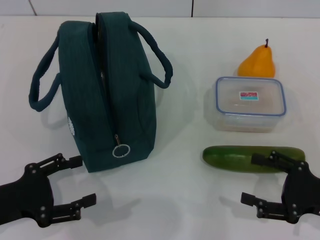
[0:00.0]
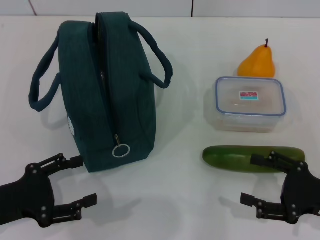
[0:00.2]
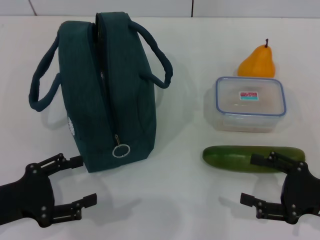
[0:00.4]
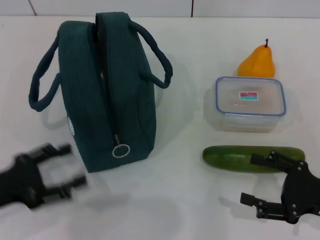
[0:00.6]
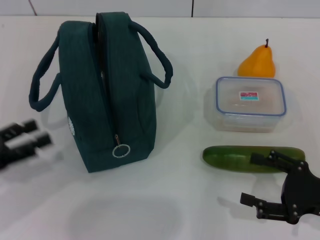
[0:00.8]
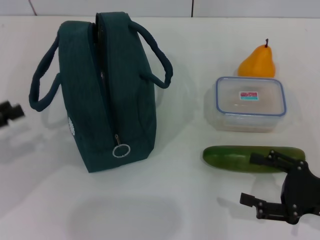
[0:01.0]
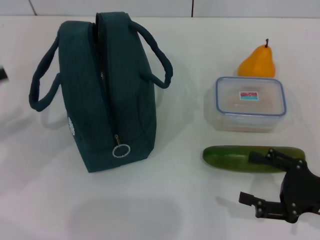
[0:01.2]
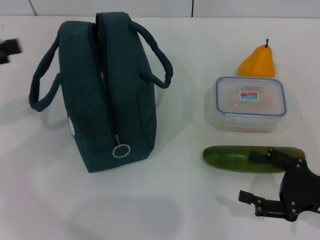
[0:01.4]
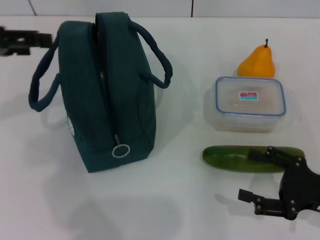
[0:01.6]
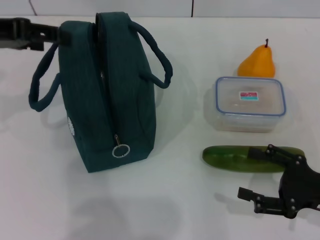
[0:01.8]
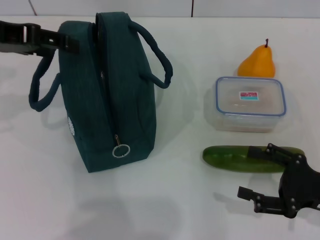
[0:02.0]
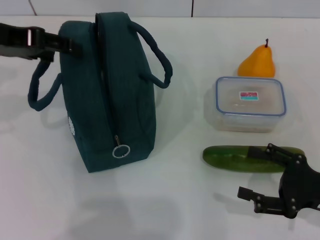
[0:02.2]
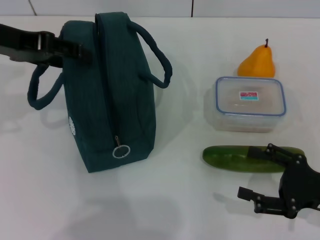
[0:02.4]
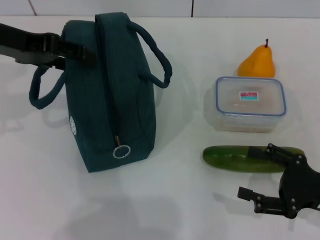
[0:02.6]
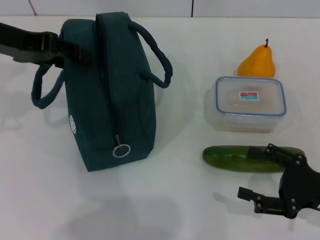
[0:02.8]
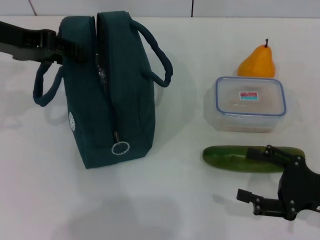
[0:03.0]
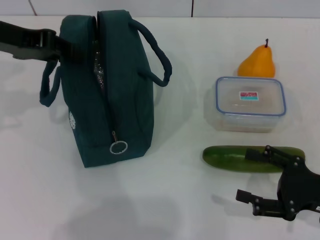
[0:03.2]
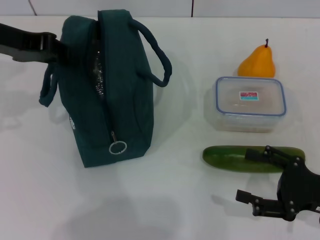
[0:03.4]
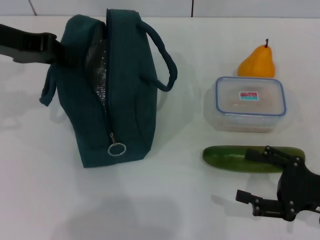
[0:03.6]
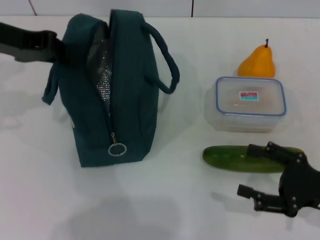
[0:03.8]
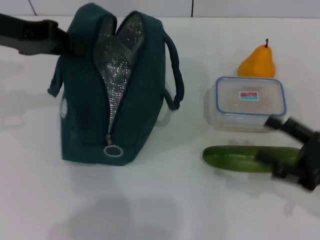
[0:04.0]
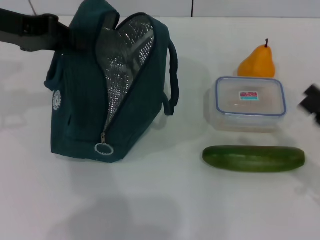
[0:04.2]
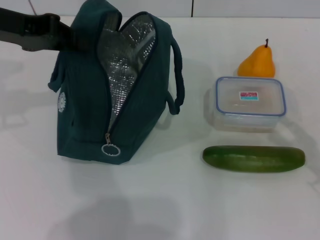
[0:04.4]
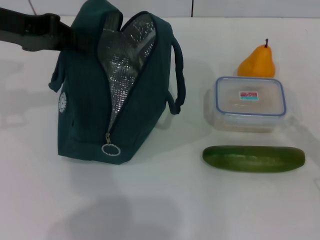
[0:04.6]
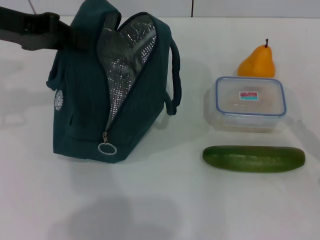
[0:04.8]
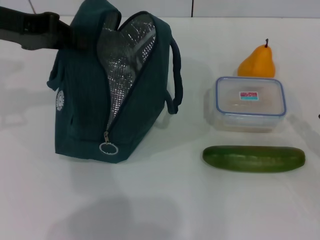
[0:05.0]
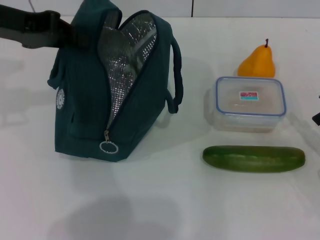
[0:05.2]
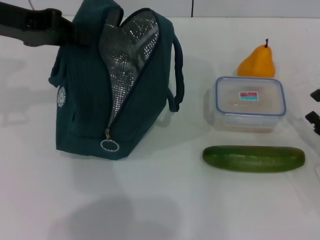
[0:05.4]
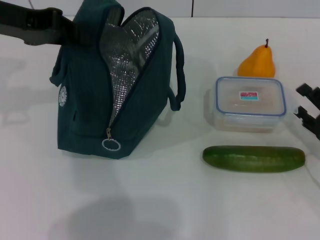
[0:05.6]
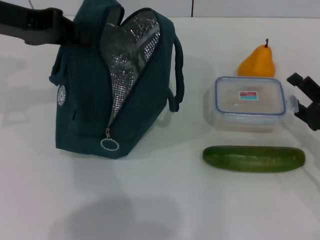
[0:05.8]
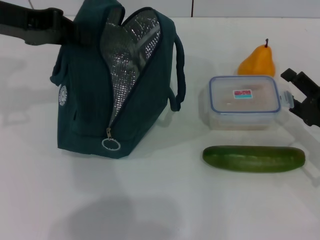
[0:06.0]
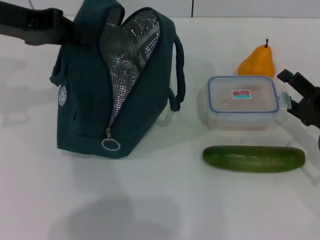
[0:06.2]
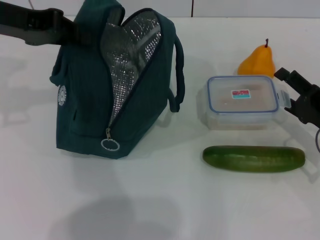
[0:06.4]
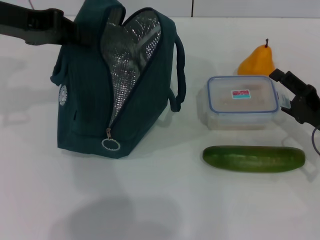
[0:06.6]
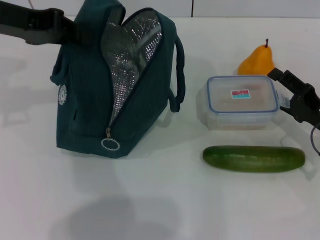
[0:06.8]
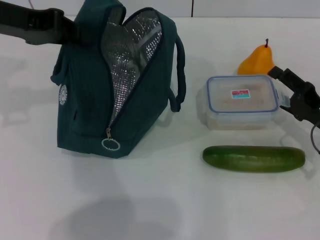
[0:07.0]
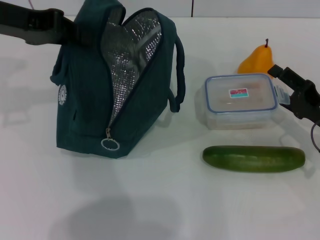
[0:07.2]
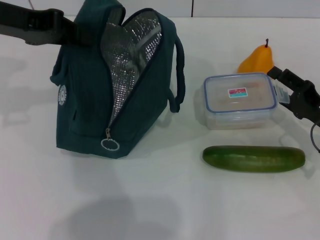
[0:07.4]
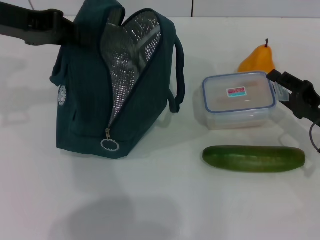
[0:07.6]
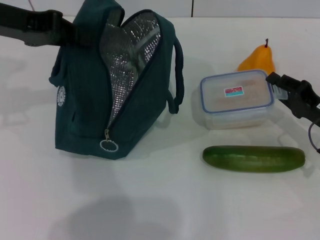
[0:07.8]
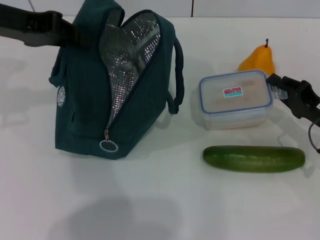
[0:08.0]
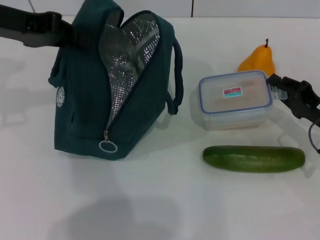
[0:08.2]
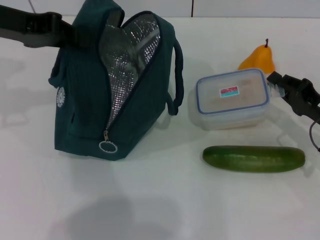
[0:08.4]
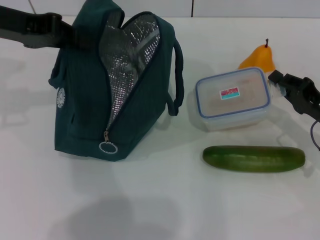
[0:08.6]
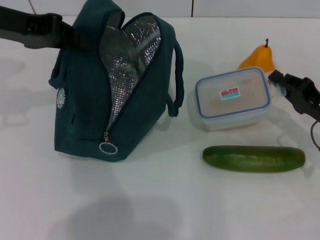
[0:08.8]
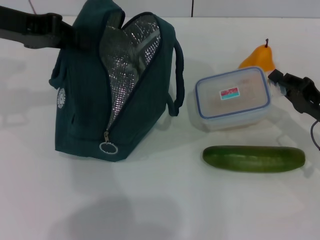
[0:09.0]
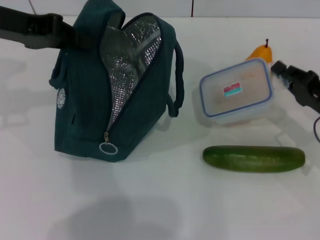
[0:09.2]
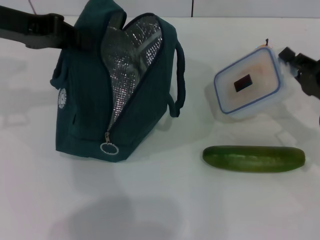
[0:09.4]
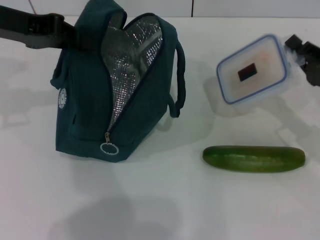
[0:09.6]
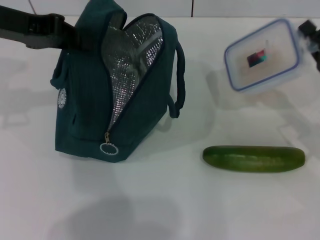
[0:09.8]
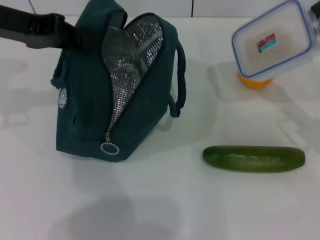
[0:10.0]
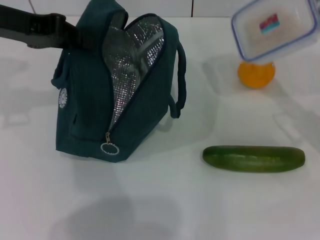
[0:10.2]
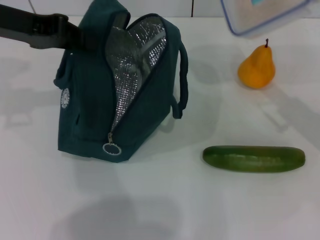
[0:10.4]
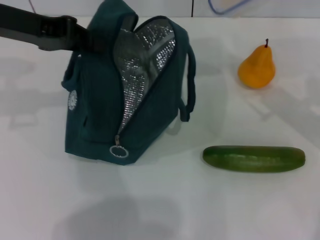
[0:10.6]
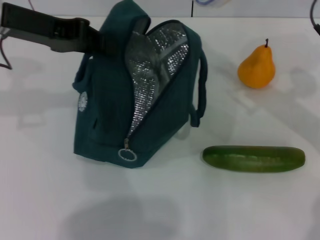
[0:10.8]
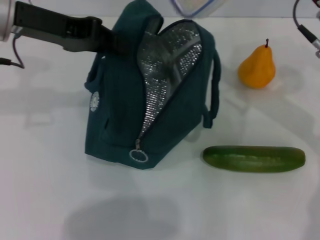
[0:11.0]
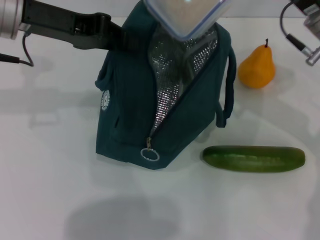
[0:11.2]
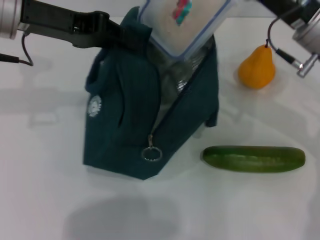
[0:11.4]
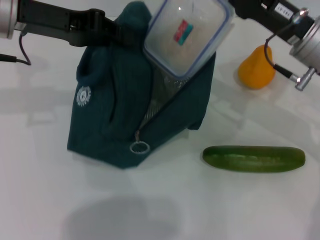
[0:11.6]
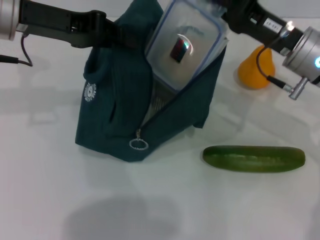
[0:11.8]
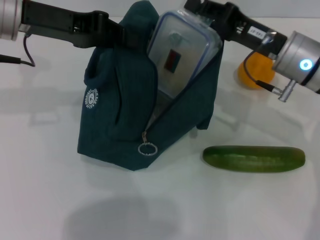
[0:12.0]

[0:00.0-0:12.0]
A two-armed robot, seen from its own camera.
Step, 0:00.0 to 0:03.8: Hold the lunch bag with your left hand.
Step, 0:04.0 to 0:08.8: Pick up the lunch box with your right hand.
0:00.0 to 0:01.6: The left gripper is displaced upward and forward by some 20 cm.
0:01.6 to 0:03.0: The left gripper ends up roughly 5 cm from where it was.
0:03.0 to 0:04.4: The left gripper closes up.
0:04.4 to 0:06.0: The right gripper shifts approximately 5 cm forward.
0:06.0 to 0:07.6: The grippers stay close to where they were, moving slightly.
0:07.6 to 0:09.0: The right gripper closes up.
0:09.0 to 0:10.4: The right gripper shifts roughly 10 cm upward.
0:10.4 to 0:12.0: The right gripper is displaced to the left by some 10 cm.

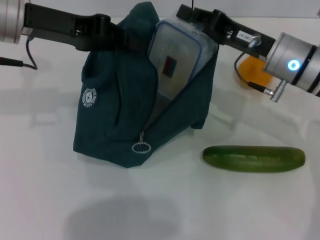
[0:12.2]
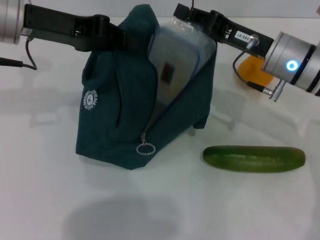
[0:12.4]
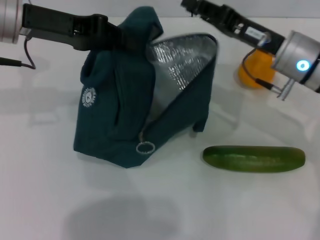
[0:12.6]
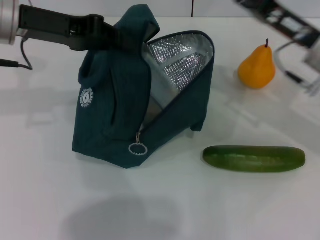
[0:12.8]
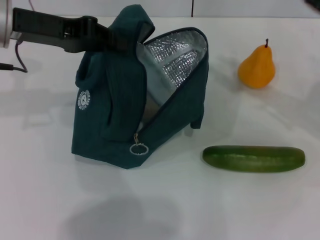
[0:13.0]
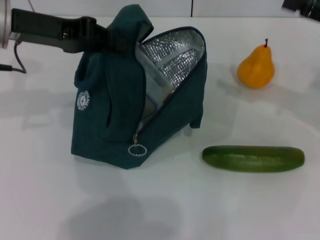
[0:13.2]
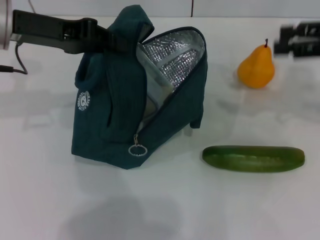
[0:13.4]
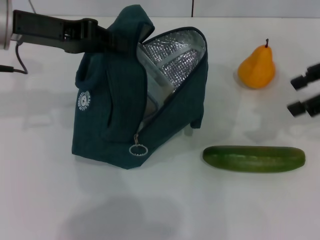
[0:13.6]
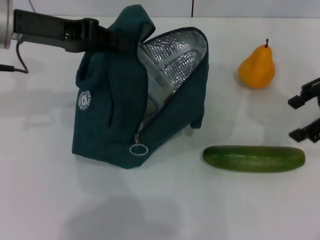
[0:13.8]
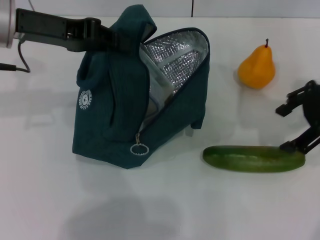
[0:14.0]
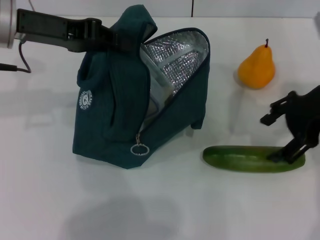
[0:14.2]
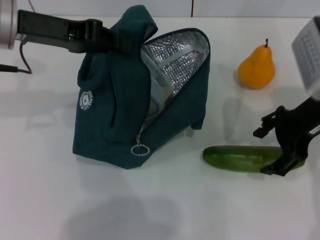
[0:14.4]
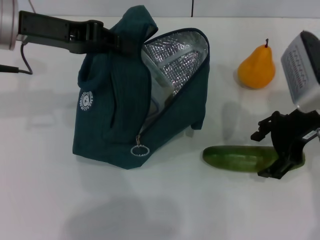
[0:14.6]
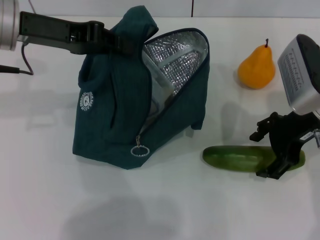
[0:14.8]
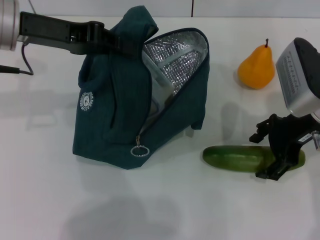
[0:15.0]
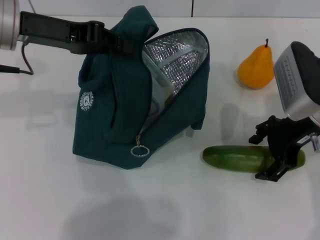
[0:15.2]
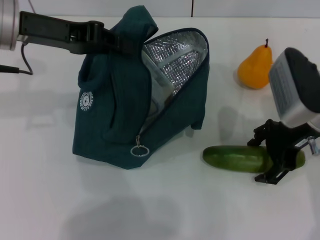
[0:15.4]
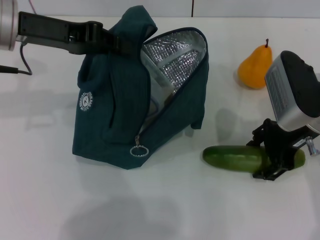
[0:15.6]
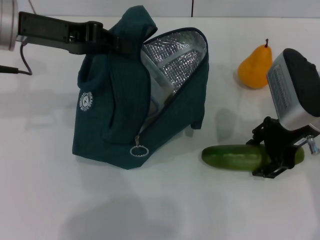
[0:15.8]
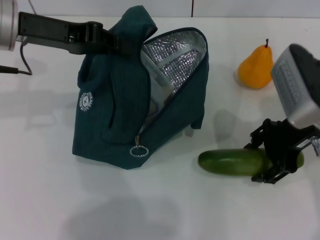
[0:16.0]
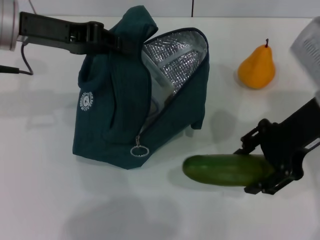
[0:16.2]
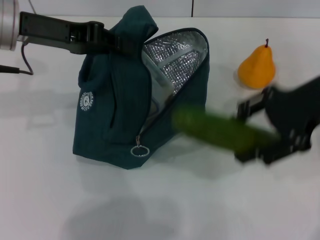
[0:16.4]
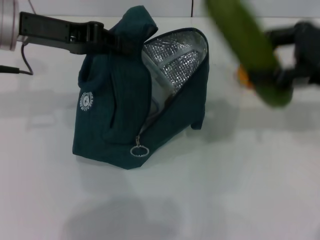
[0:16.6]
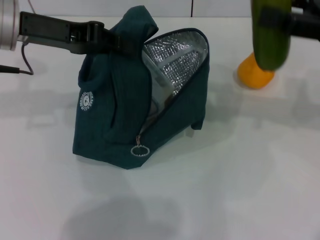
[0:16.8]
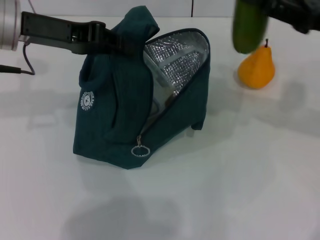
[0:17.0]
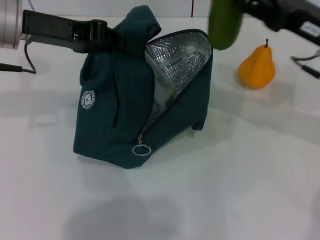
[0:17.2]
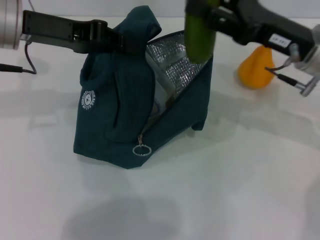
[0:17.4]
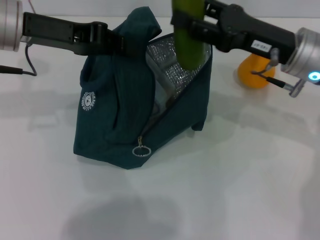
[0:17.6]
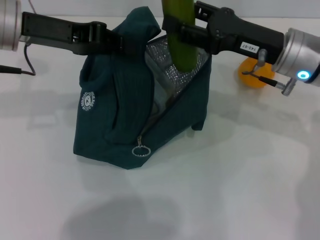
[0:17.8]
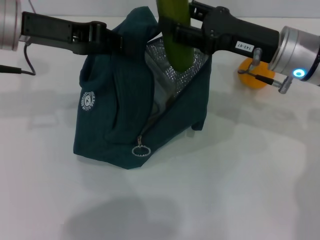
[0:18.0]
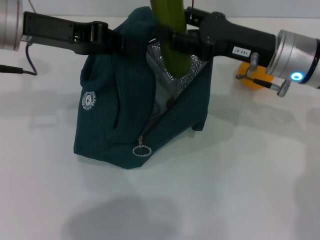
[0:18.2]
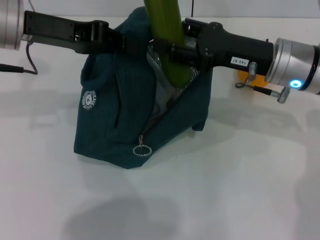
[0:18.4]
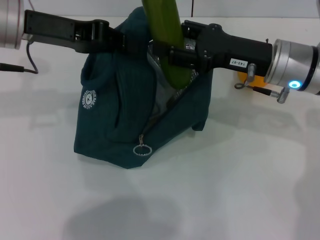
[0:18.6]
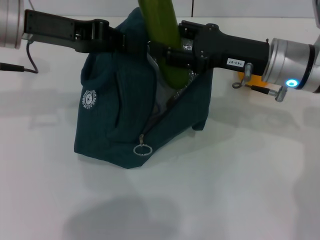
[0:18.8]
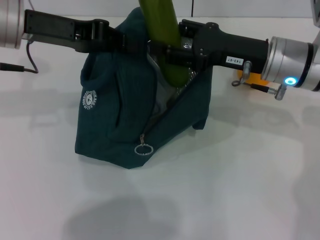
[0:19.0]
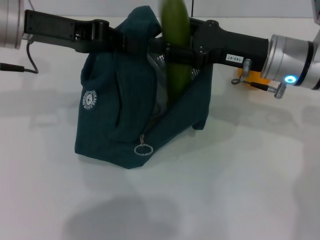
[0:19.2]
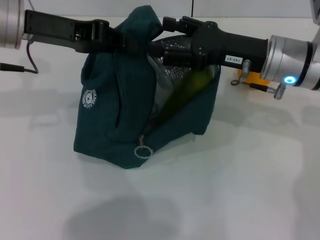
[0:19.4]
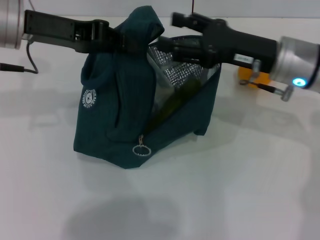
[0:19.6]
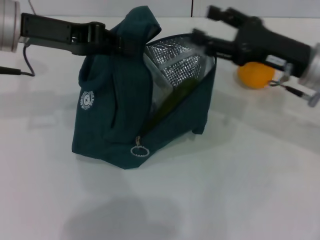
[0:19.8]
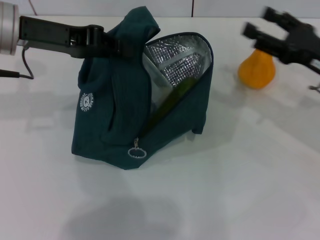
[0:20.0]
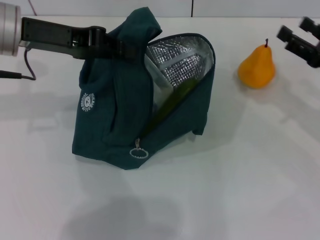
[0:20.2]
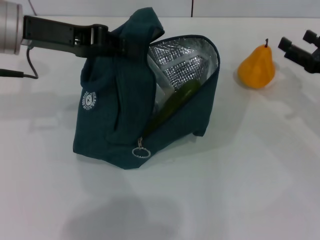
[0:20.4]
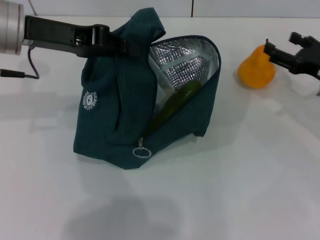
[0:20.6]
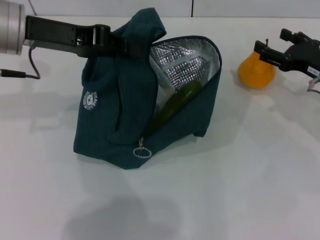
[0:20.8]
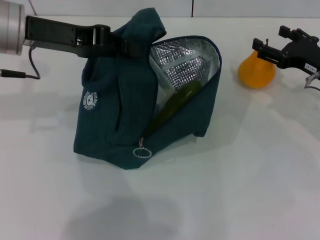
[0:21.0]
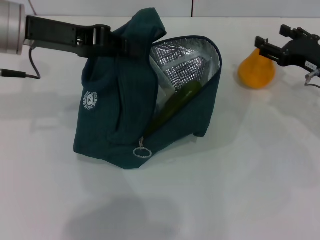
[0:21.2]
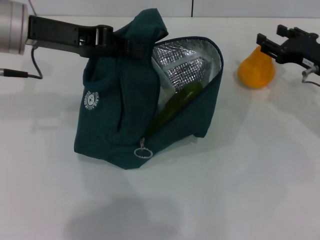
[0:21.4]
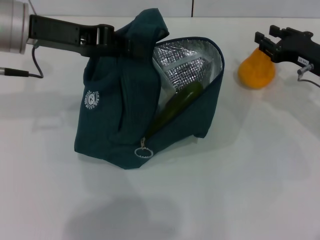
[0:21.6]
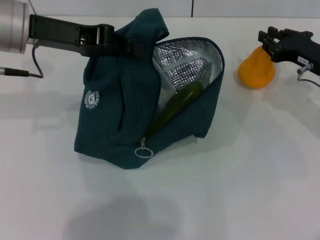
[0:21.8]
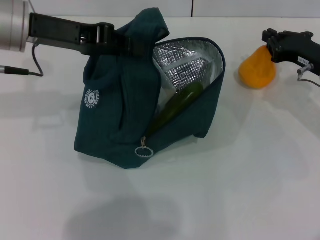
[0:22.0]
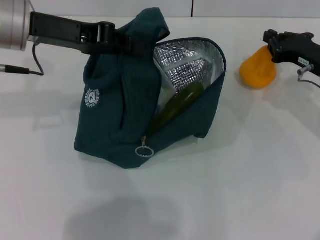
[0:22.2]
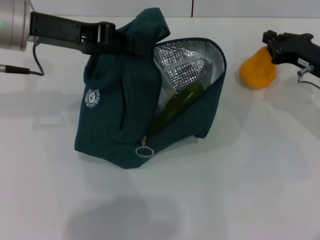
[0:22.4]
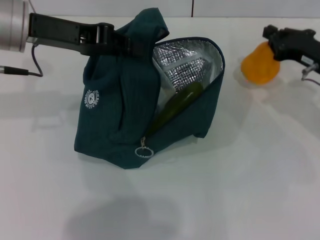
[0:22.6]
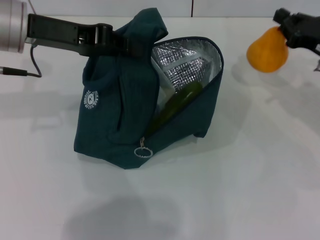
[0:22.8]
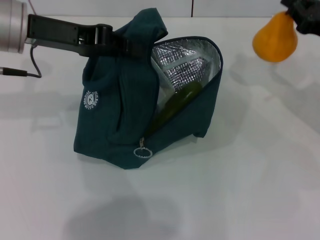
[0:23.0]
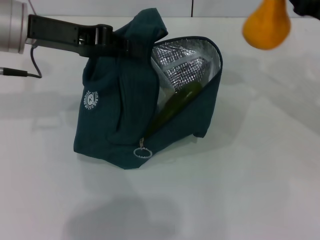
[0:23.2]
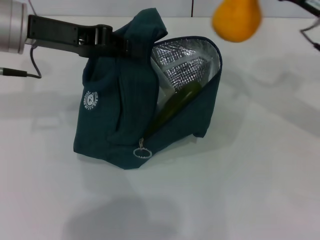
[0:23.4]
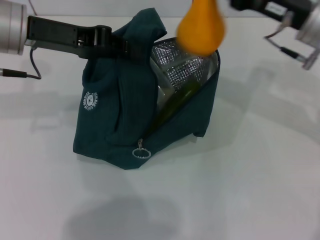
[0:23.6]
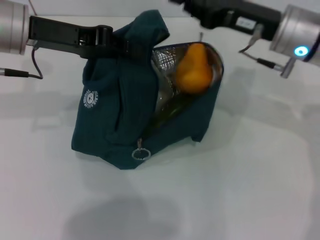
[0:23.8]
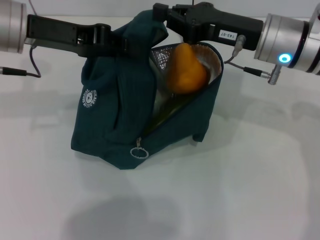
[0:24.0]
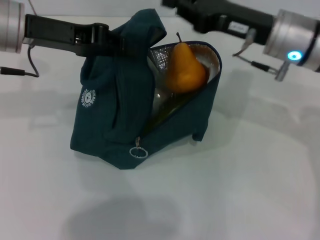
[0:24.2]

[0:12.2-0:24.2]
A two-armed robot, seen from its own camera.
Step, 0:13.2 to 0:15.6: Pick up the cucumber with your right hand.
Step, 0:15.8 to 0:19.6: Put the cucumber into the lunch bag with your right hand.
Step, 0:20.0 to 0:22.2: Grab the pear with your right hand.
0:12.2 to 0:13.8: The right gripper travels to the right and upward by some 15 cm, and opens its fingers.
0:13.8 to 0:15.2: The right gripper travels downward and to the left by some 10 cm.
0:15.2 to 0:16.6: The right gripper travels upward and to the right by about 10 cm.
0:16.6 to 0:18.2: The right gripper is displaced to the left and downward by approximately 15 cm.
0:18.2 to 0:19.8: There are only small adjustments of the grippers.
0:19.8 to 0:21.2: The right gripper travels to the right by some 5 cm.
0:21.2 to 0:22.6: The right gripper closes.
0:22.6 to 0:24.2: The right gripper heads to the left and upward, covering approximately 15 cm.
